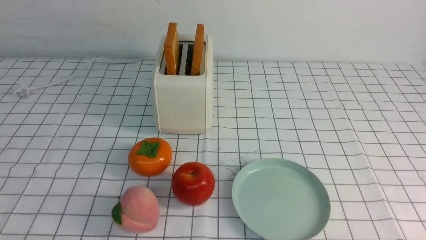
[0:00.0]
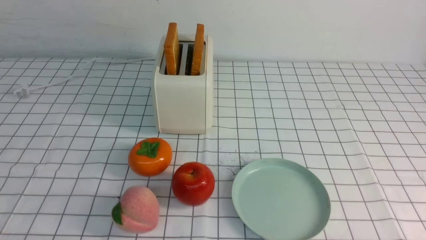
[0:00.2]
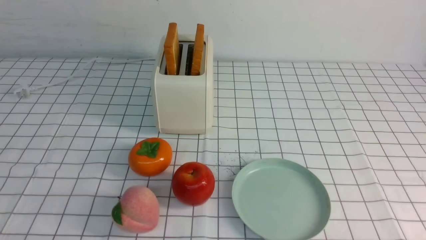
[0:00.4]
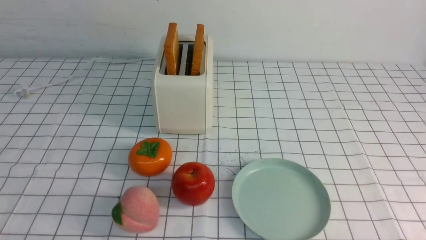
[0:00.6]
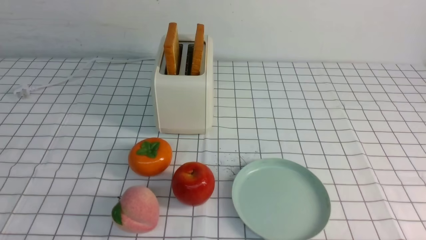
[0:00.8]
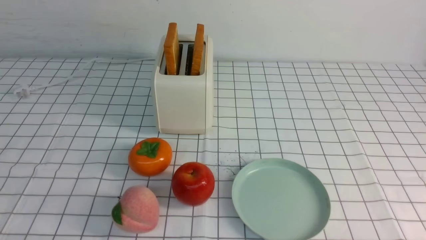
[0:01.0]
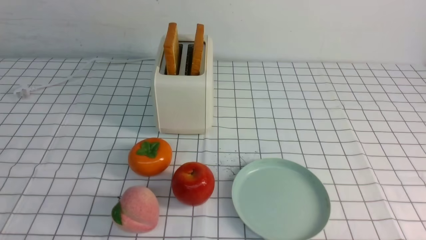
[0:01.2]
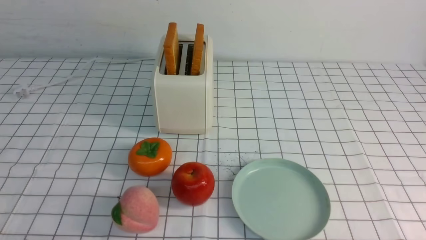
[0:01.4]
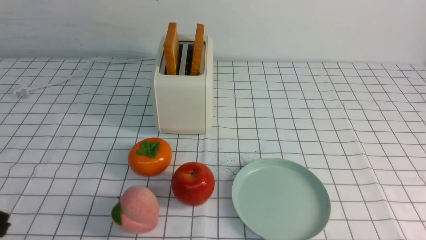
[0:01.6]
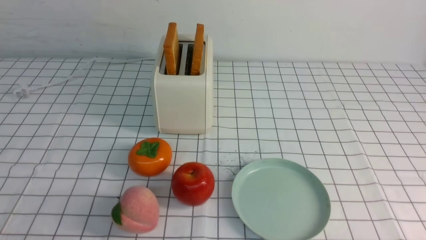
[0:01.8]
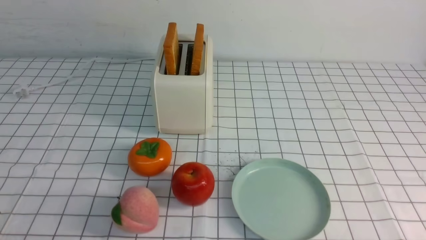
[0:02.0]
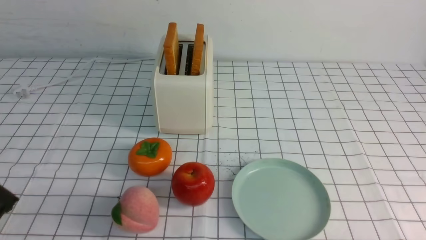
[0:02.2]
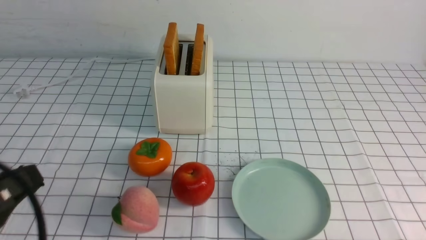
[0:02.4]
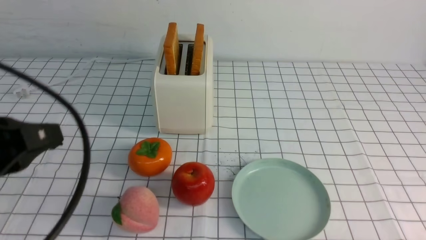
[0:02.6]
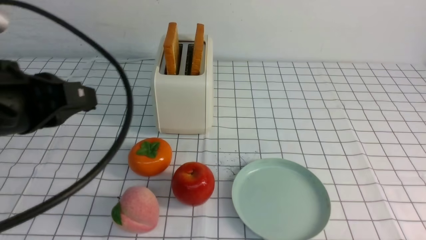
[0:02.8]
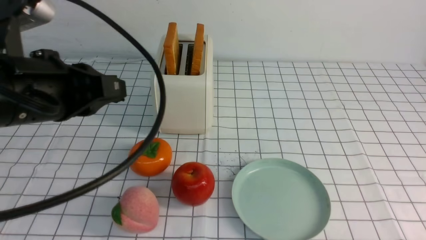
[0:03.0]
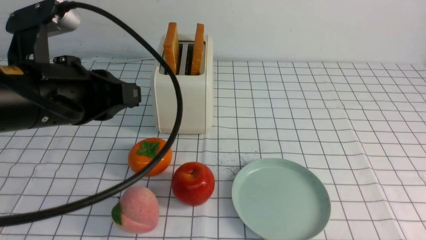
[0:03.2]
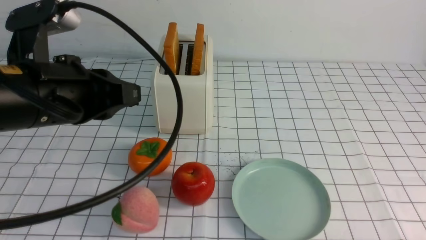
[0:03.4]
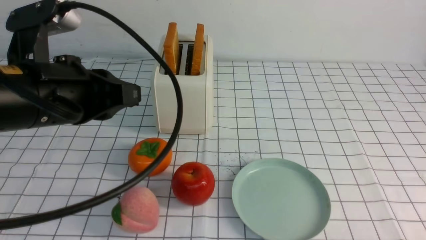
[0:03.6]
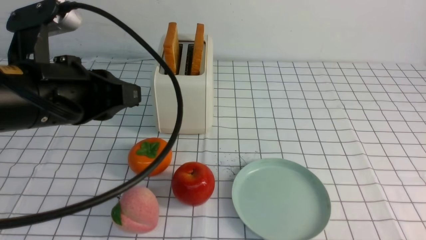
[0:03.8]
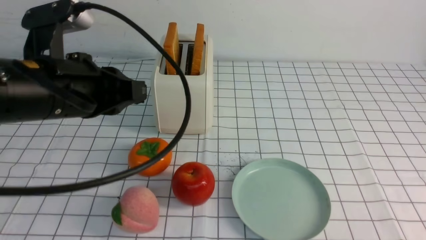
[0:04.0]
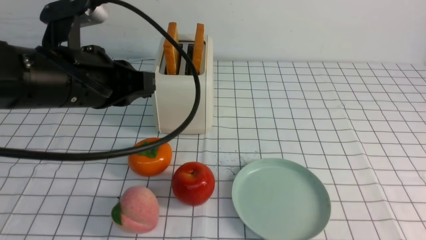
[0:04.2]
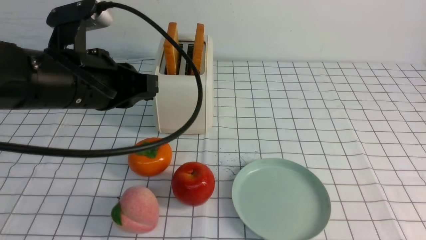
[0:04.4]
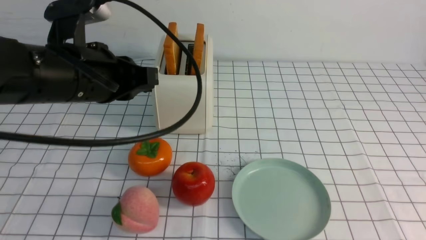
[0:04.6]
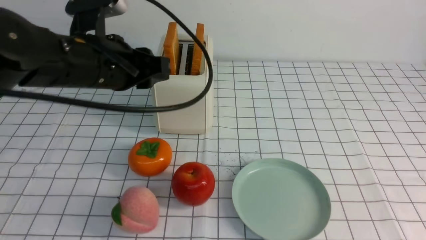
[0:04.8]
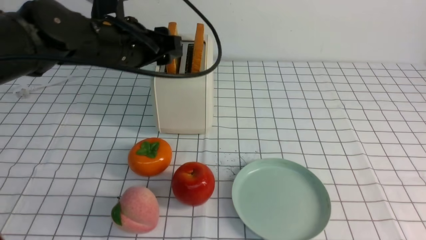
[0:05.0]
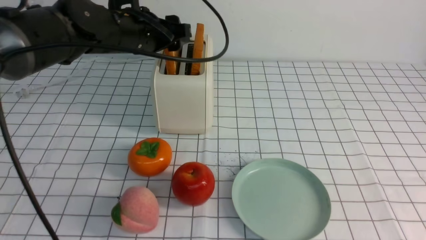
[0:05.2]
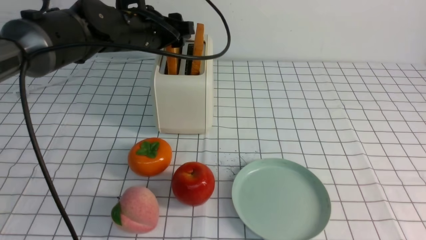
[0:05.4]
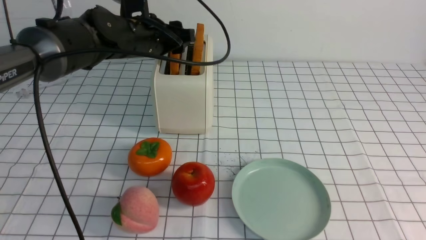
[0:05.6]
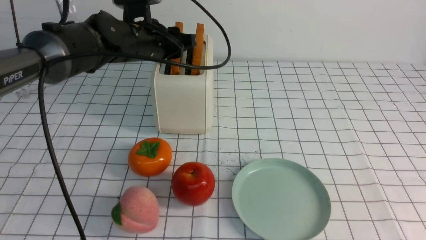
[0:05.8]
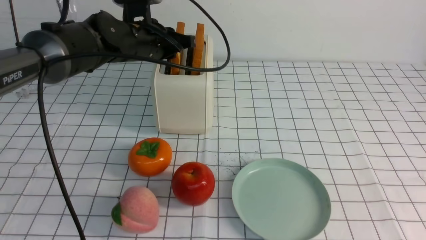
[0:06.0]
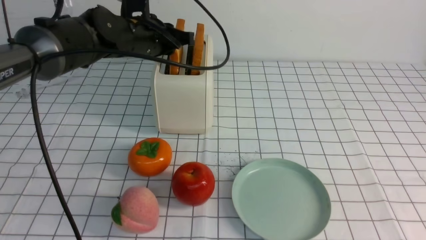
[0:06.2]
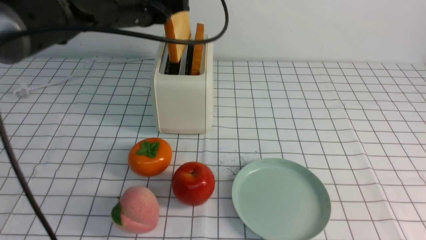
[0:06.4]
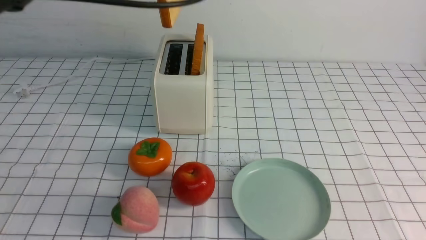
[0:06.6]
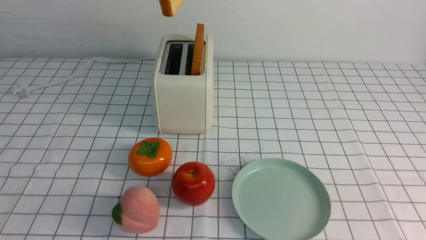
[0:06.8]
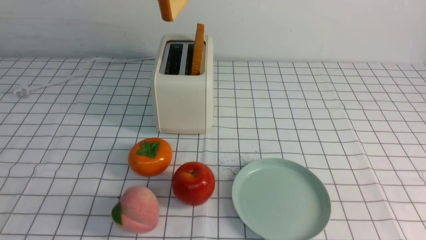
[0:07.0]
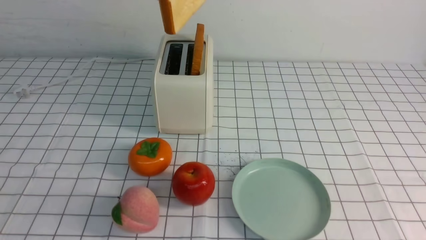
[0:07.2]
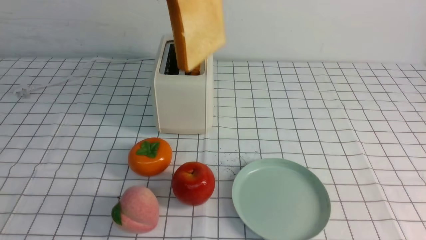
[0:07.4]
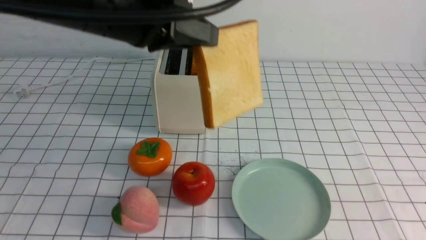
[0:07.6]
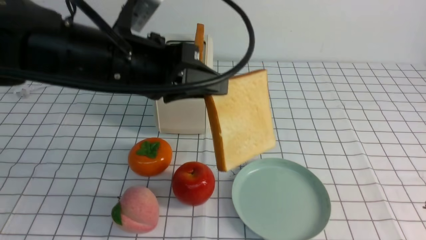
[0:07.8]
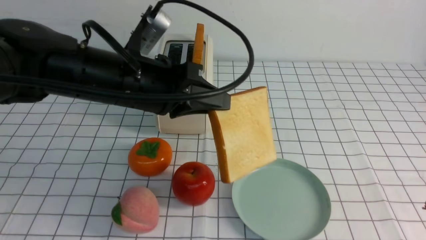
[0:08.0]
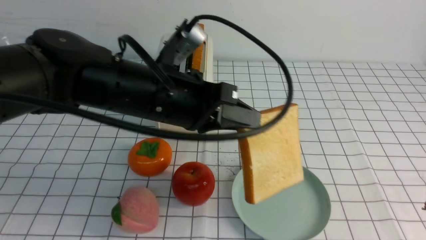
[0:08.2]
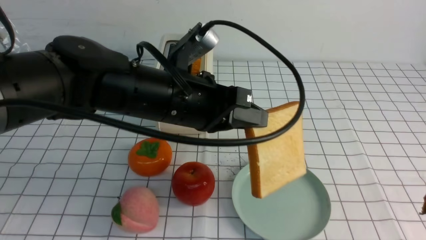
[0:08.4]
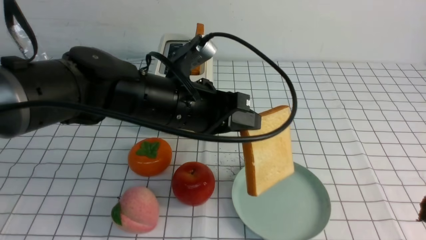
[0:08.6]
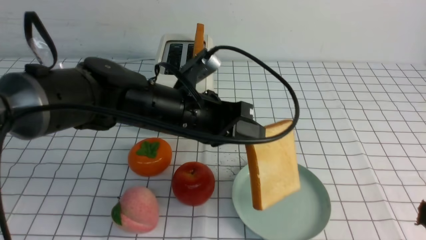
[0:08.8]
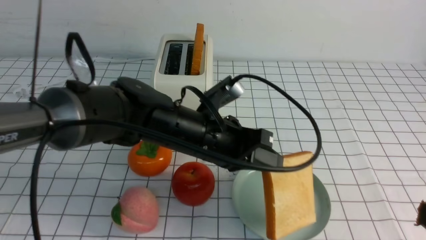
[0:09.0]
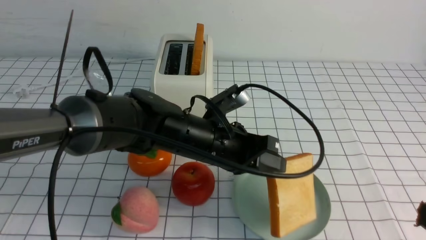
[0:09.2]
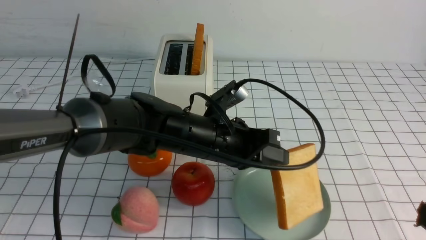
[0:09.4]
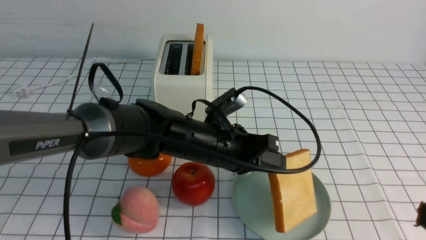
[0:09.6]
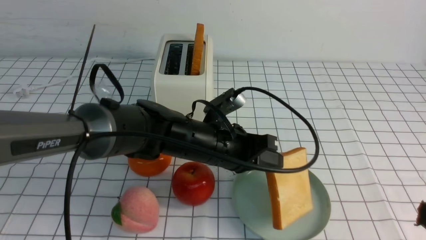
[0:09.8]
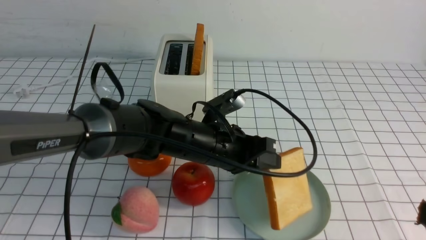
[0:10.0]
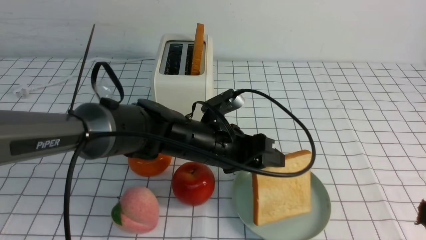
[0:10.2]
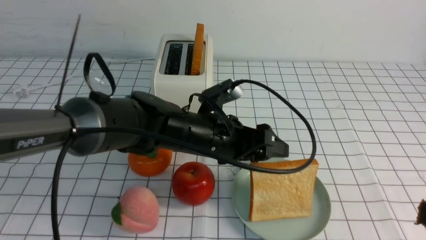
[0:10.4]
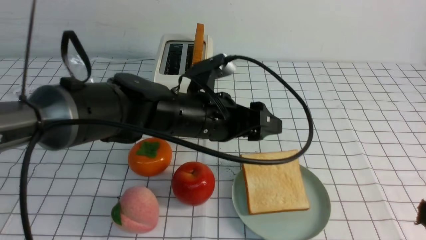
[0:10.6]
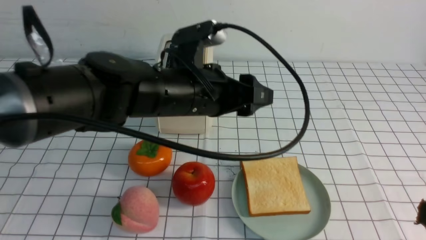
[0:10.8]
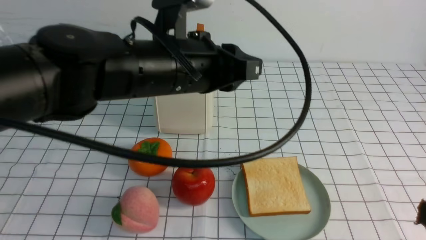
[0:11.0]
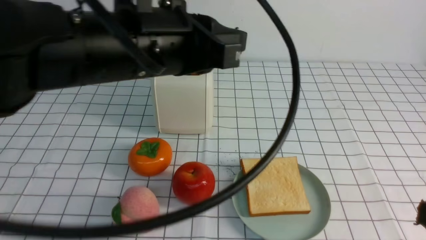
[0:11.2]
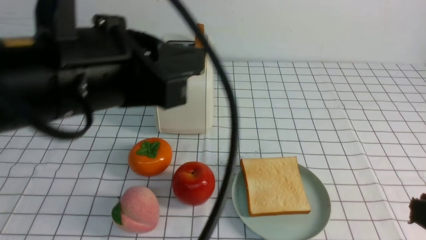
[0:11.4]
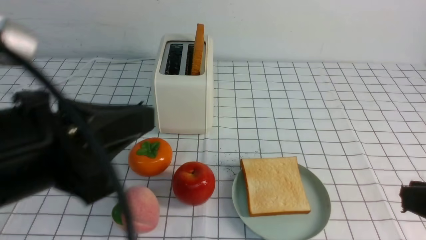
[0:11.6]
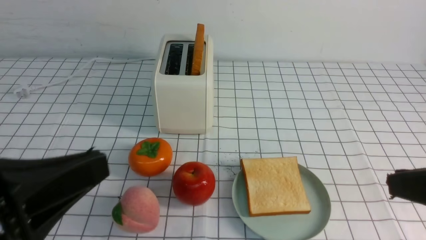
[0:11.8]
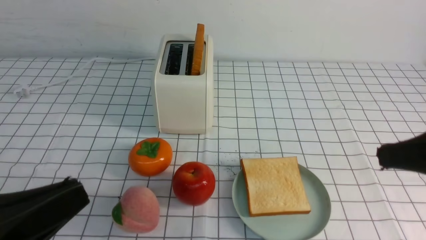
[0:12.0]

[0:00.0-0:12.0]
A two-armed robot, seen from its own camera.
Task of the whole recording: take toasted bread from bread machine on white checkered table place on plate.
Step, 0:00.0 to 0:06.4: use the left arm to take out a slice of bread.
Step, 0:06.6 to 0:10.6: use the left arm to put a slice of bread into the empty plate.
0:01.6 to 0:03.0: The left gripper shifts approximately 25 cm forward, upward and to the right, and closes up.
0:03.0 to 0:04.4: The right gripper is displaced upward by about 15 cm, and closes its fingers. Meanwhile the left gripper moves forward, some 5 cm.
0:04.4 to 0:06.0: The left gripper travels forward by about 20 cm, and opens, then closes again.
0:06.0 to 0:07.6: The left gripper heads backward and upward, covering approximately 20 cm.
0:07.6 to 0:09.0: The left gripper goes about 20 cm downward and to the right.
0:09.0 to 0:10.4: The left gripper opens.
0:10.4 to 0:12.0: The right gripper travels forward and upward by approximately 15 cm; the left gripper shifts roughly 30 cm backward and to the left, and closes up.

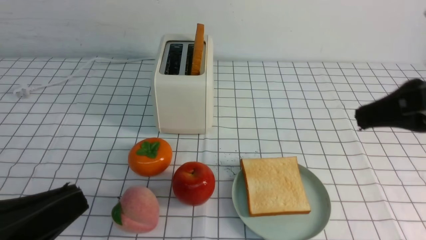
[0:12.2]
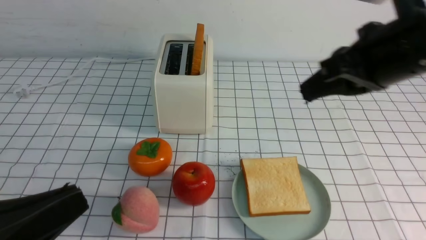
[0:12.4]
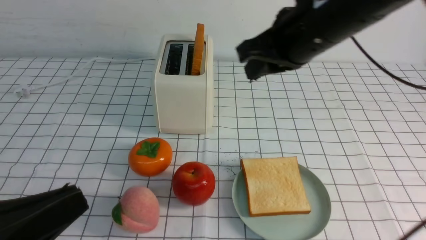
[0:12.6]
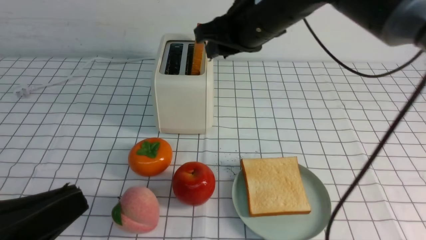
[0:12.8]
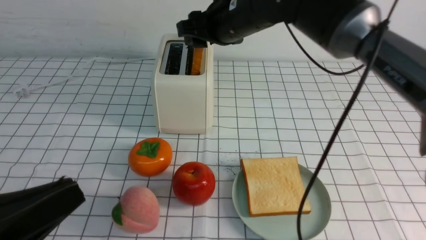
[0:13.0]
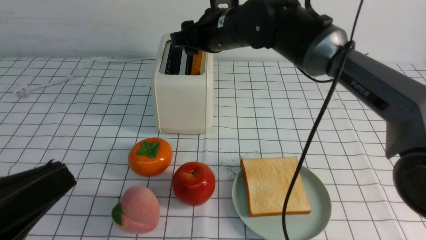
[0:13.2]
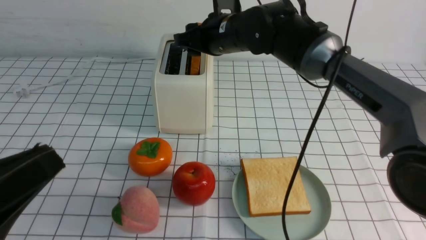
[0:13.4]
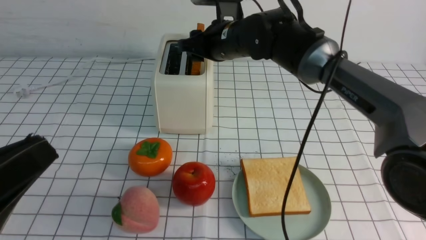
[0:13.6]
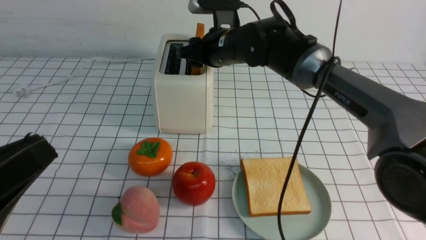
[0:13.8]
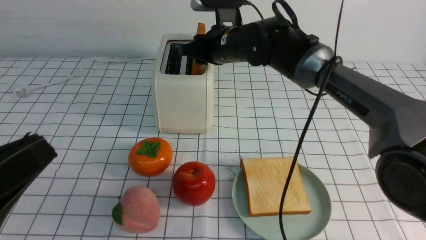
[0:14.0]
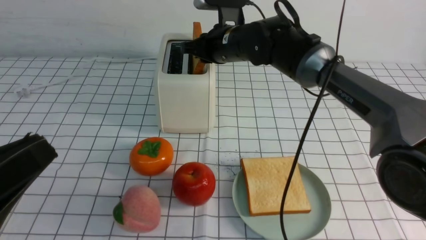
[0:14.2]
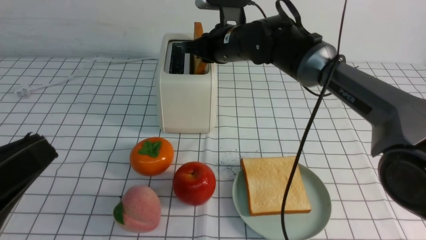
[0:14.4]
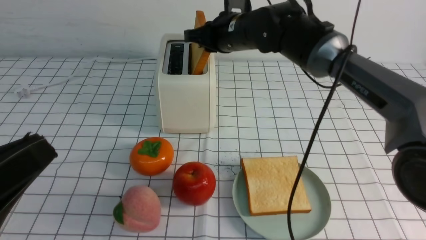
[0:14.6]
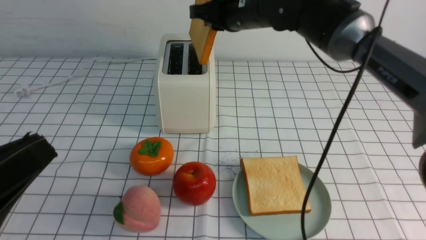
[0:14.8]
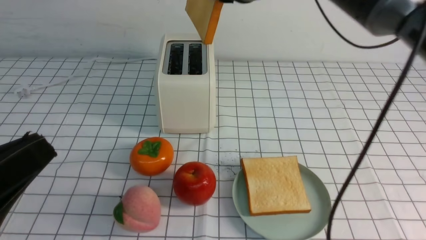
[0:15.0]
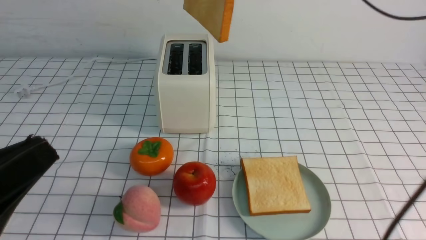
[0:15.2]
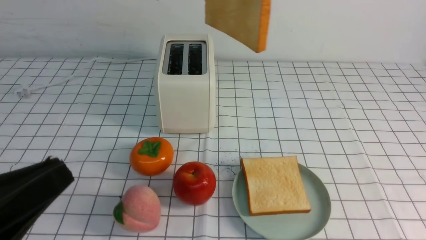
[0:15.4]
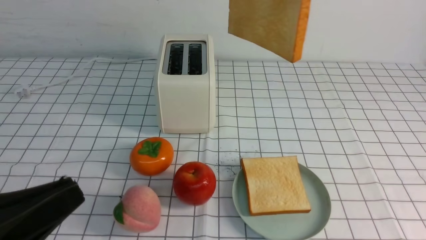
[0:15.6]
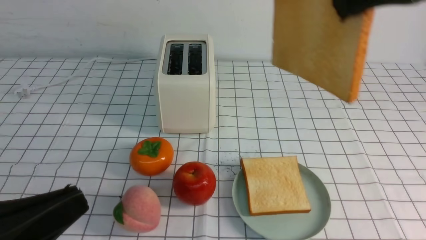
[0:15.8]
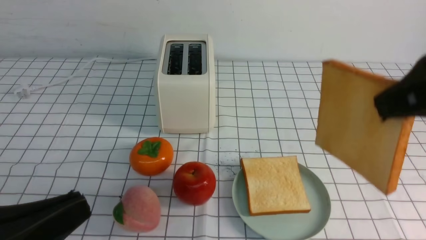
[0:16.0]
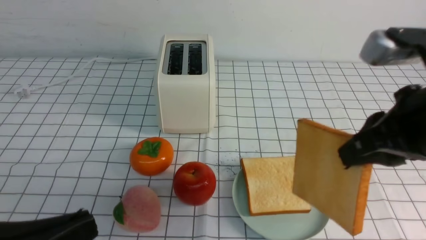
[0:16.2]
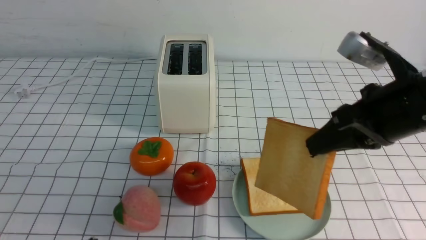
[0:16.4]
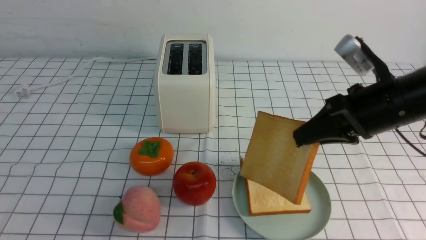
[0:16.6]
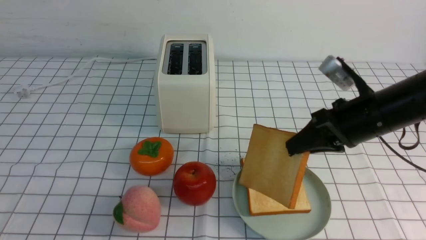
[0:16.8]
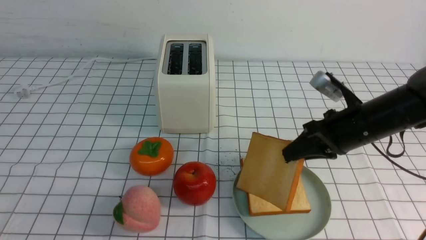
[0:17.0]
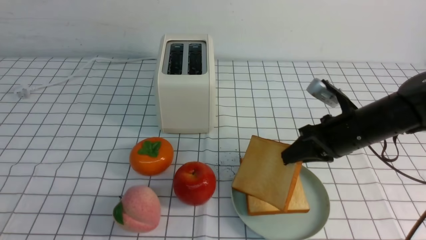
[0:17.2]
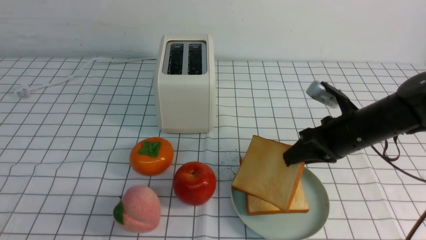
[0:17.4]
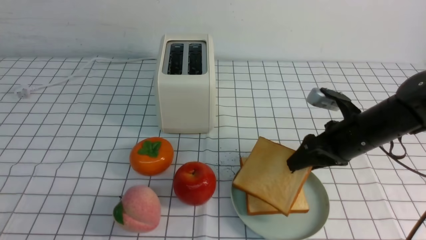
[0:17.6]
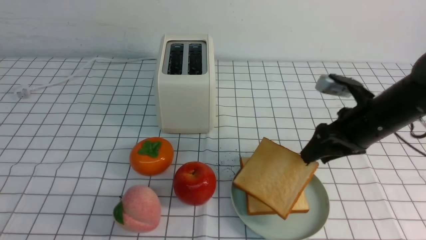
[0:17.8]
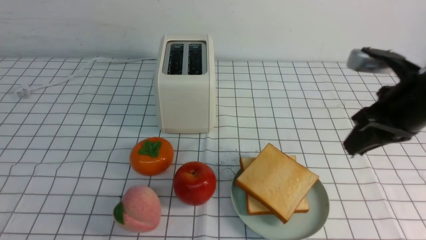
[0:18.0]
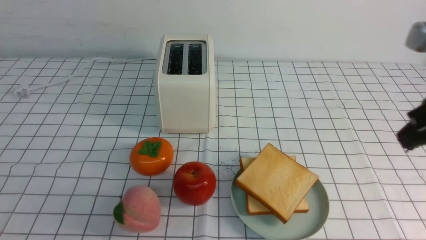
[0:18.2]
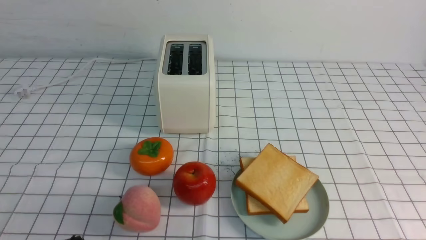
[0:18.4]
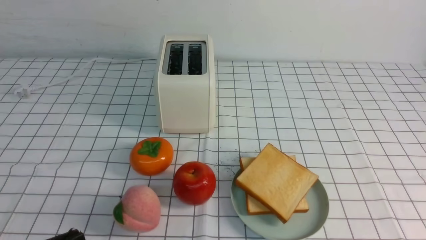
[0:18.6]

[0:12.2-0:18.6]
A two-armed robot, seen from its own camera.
Task of the whole recording: take toasted bread from bread machine on white checkered table place on plate.
Step, 0:12.2 to 0:14.6: use the right arm to take out a slice of bread.
Step, 0:15.0 to 0:17.8: use the right arm to put a slice of bread into the plate.
0:12.2 to 0:13.8: The right gripper is displaced forward and to the left by about 30 cm, and opens its fingers.
0:13.8 to 0:15.4: The right gripper travels upward, backward and to the right by roughly 30 cm, and closes.
0:15.4 to 0:17.0: The right gripper goes about 25 cm downward.
0:17.0 to 0:18.6: The right gripper travels backward and upward by roughly 30 cm, and opens, then closes again.
